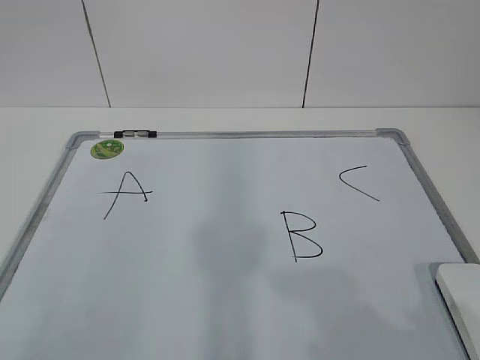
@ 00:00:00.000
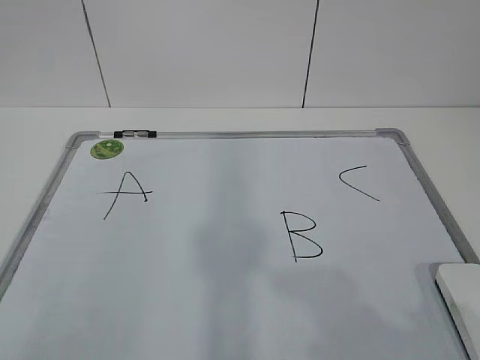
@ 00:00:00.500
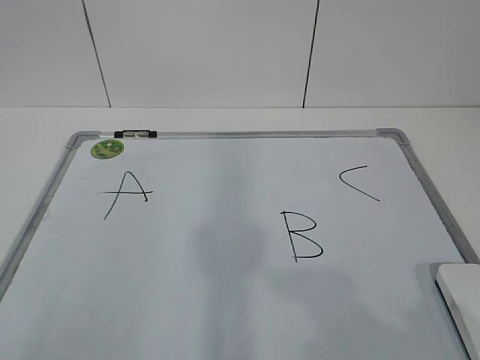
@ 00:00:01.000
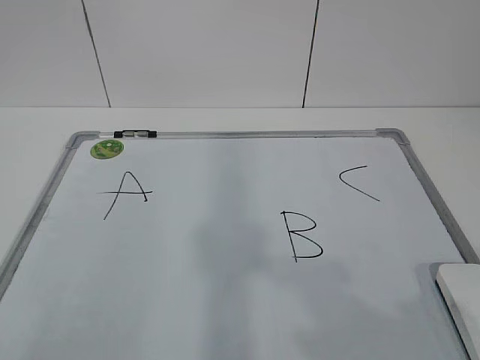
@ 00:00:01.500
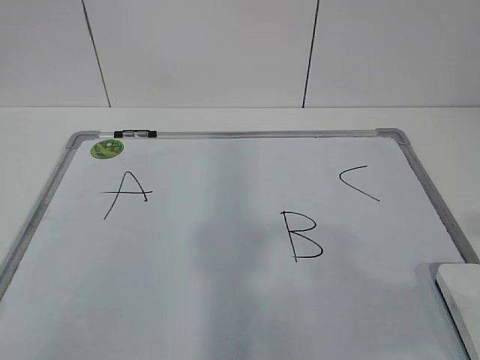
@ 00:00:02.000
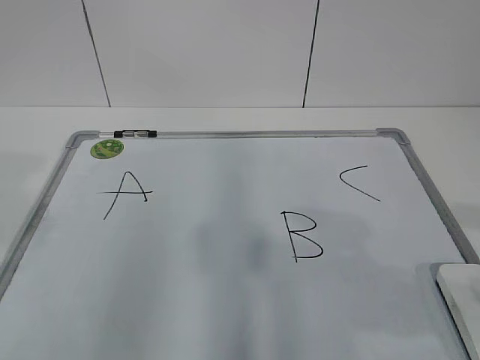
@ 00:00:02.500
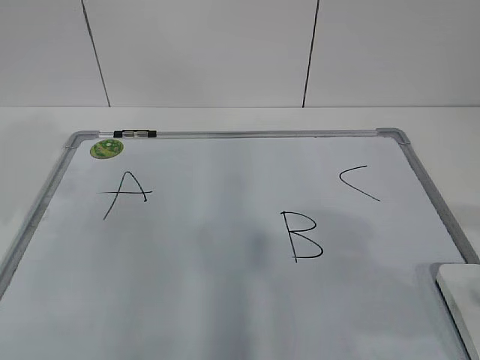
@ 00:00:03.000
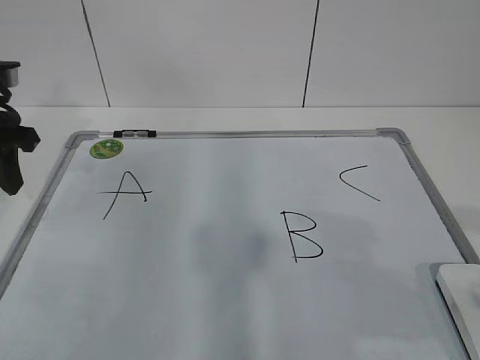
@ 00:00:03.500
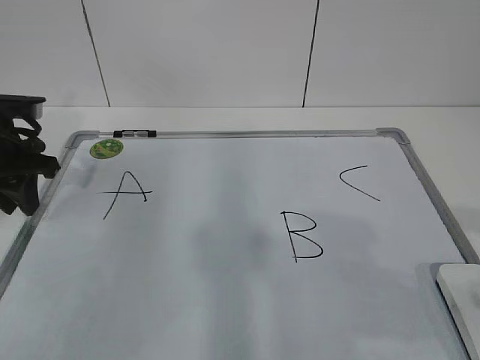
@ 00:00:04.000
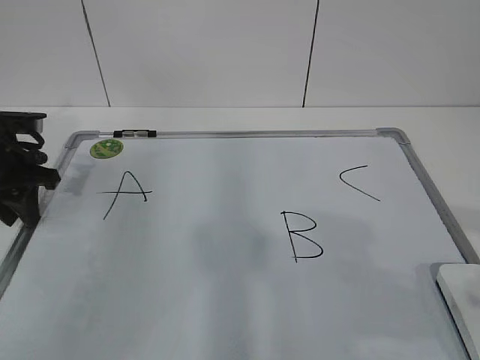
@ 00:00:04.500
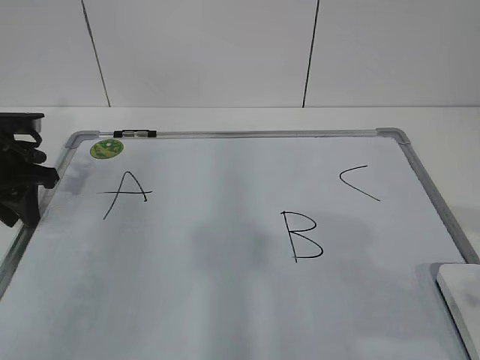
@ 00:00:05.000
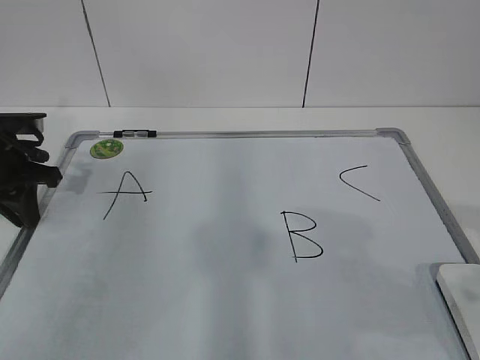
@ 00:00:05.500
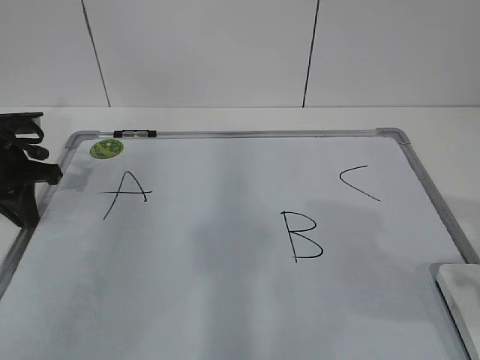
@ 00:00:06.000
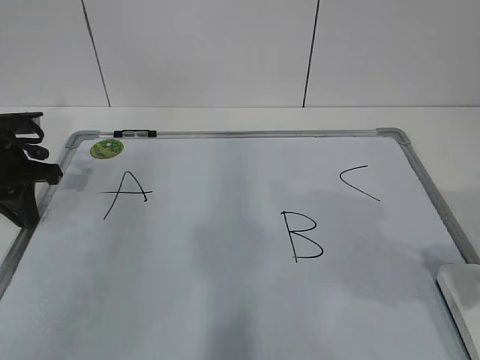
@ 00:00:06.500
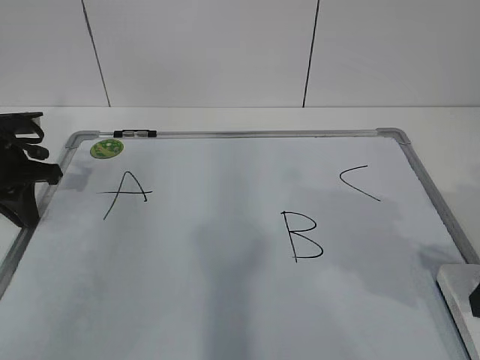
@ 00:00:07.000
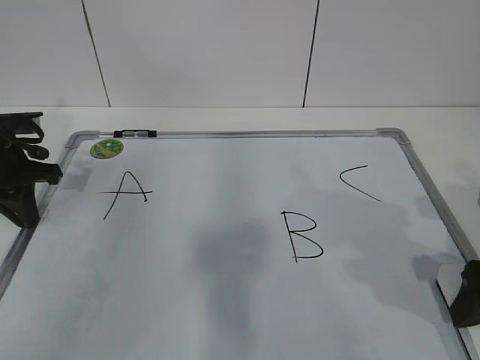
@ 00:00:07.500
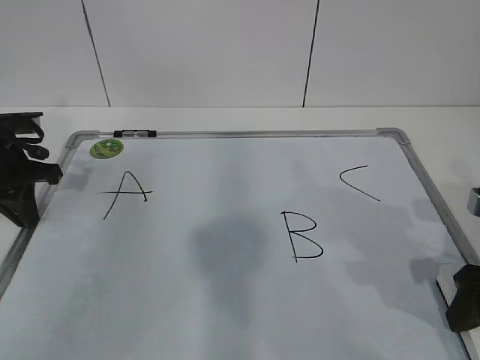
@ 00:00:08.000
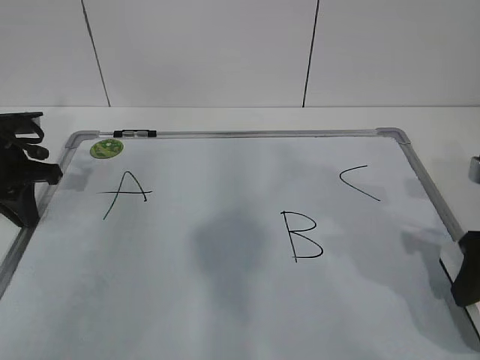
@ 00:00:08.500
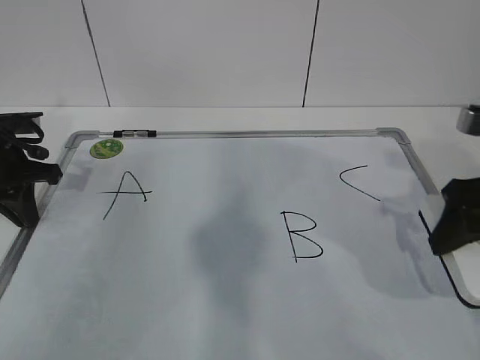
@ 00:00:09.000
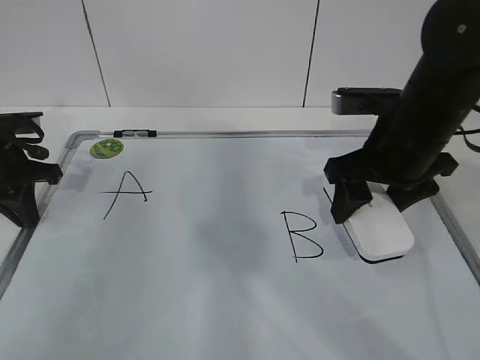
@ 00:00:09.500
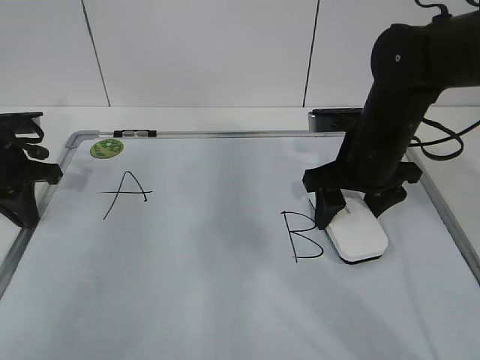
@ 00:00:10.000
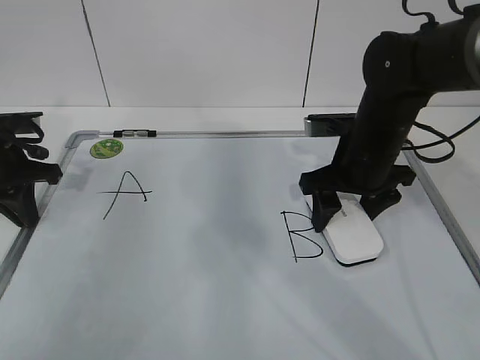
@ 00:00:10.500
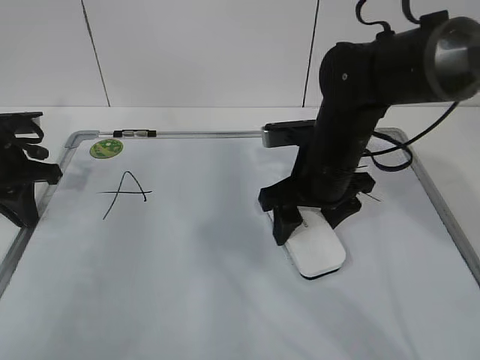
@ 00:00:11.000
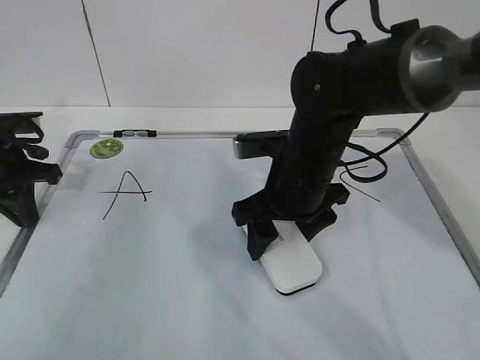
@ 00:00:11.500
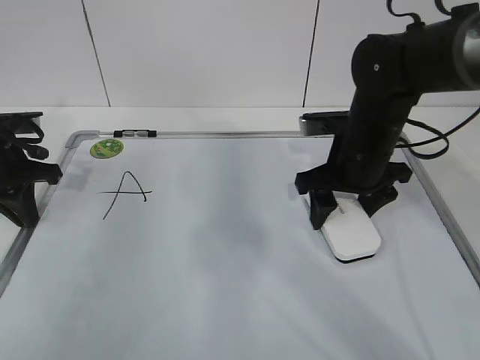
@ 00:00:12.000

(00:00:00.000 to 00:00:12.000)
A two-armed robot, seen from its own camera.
Task of the whole recording: pick up the eraser on the blackboard and erase the letter "B".
Step, 00:00:00.000 - 00:00:04.500: Hold the drawing board steady with your left hand.
00:00:02.000 - 00:00:04.000: The left gripper travels forward by approximately 35 cm.
00:00:04.000 - 00:00:06.000: The left gripper closes its fingers.
00:00:06.000 - 00:00:08.000: The right gripper moves forward and downward, approximately 15 cm, and opens, then closes once more.
00:00:08.000 - 00:00:10.000: The right gripper travels forward and to the left by roughly 20 cm, and closes.
00:00:10.000 - 00:00:12.000: The right gripper goes to the left and returns, roughly 10 cm each way.

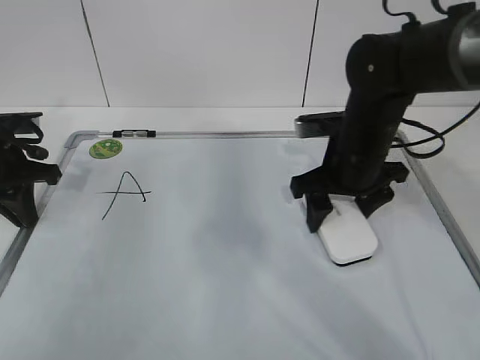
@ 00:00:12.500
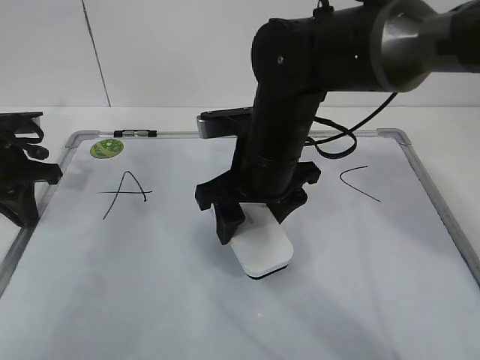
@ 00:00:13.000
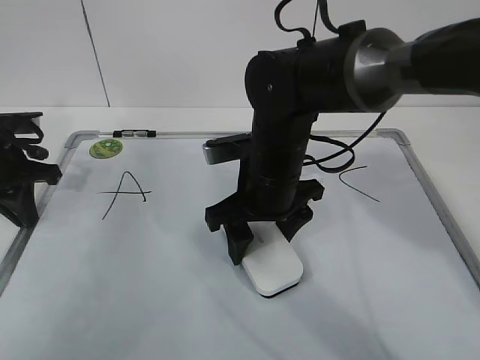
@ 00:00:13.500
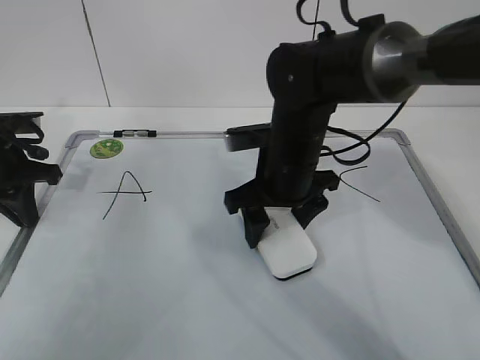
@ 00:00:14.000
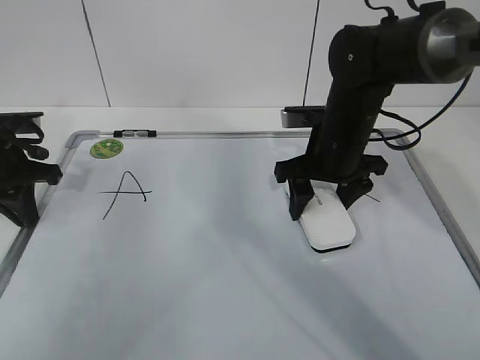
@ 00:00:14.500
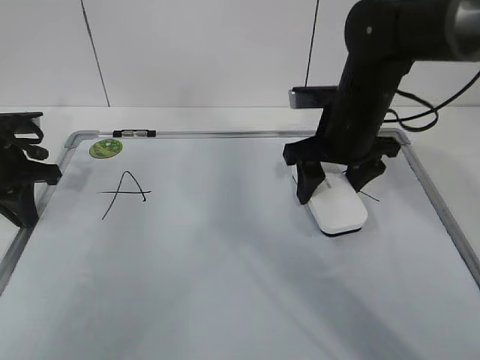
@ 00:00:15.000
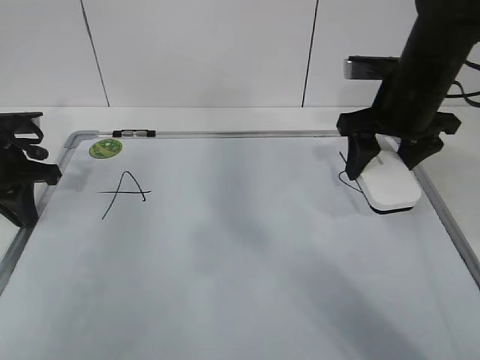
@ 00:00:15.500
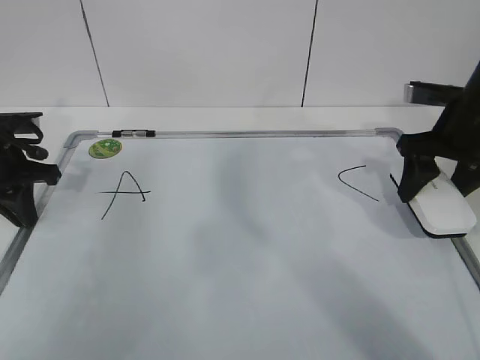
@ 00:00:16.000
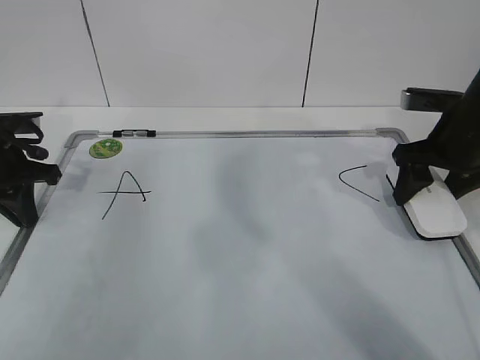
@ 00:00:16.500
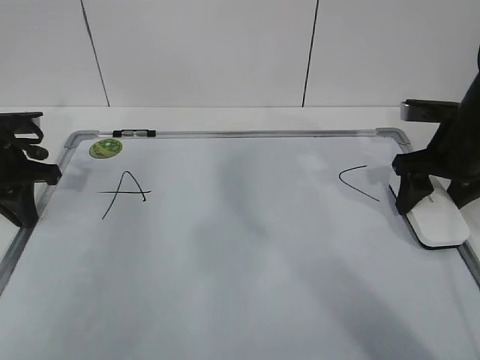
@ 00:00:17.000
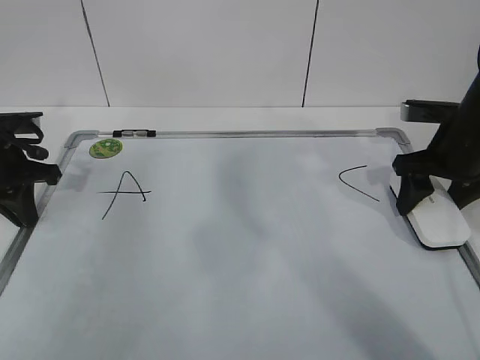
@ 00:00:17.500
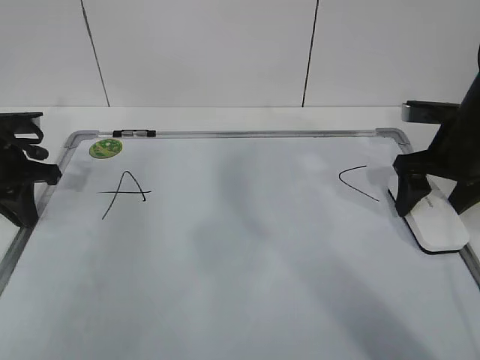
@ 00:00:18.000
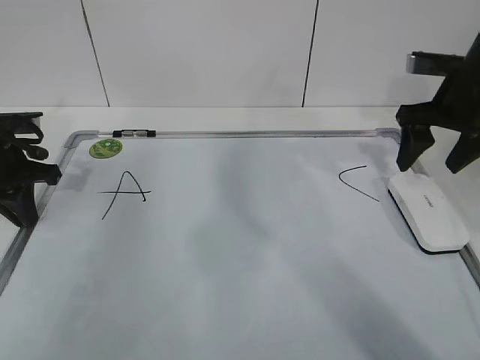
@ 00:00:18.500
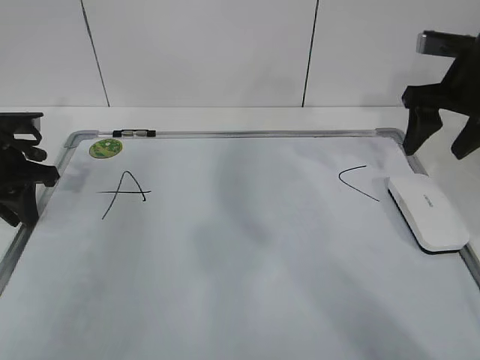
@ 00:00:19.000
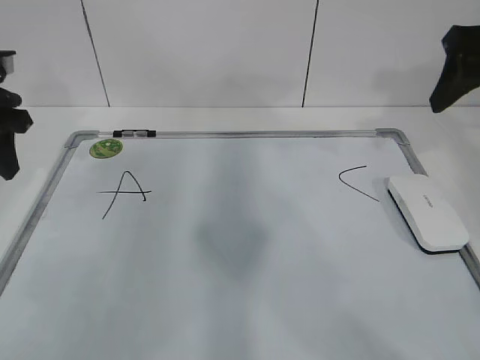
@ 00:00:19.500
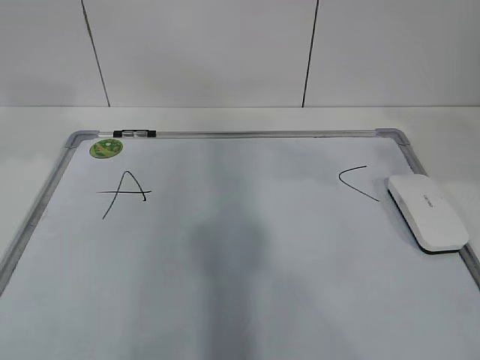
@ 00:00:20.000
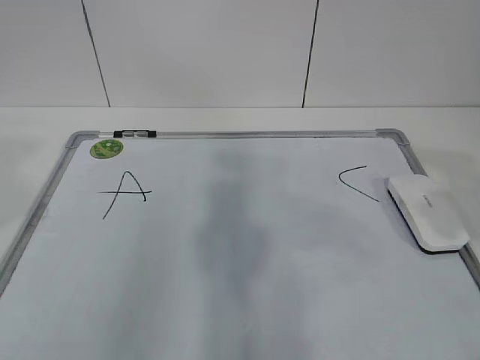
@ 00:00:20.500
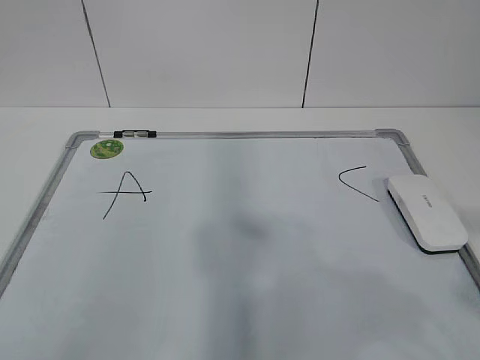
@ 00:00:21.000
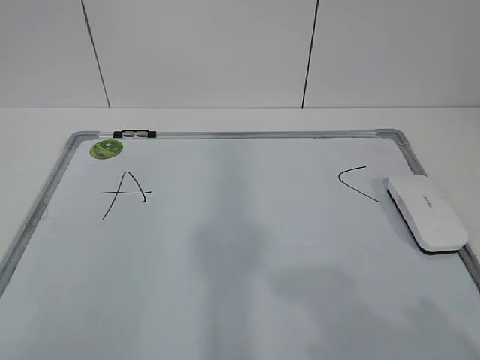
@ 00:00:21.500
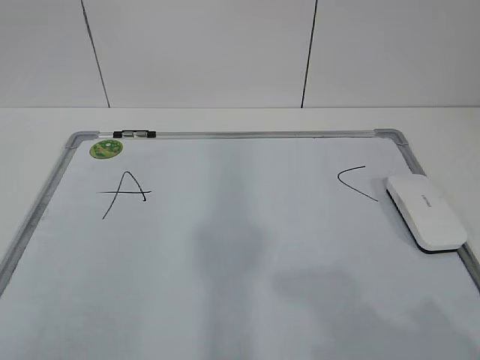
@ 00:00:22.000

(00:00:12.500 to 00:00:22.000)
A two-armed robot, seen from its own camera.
Task of the whole recording: pick up the eraser on the blackboard and erase the letter "B".
Step, 00:00:12.500 - 00:00:14.500: Put down the eraser with your right hand.
00:00:12.500 - 00:00:14.500: The right gripper travels to the left and back again, some 10 cm each way.
00:00:14.500 - 00:00:16.500: The right gripper moves to the right, about 15 cm.
00:00:16.500 - 00:00:18.000: The right gripper opens its fingers.
00:00:18.000 - 00:00:20.000: Both grippers move upward and backward, about 20 cm. The right gripper closes its fingers, while the left gripper opens its fingers.
00:00:20.000 - 00:00:22.000: The two grippers go approximately 25 cm backward.
